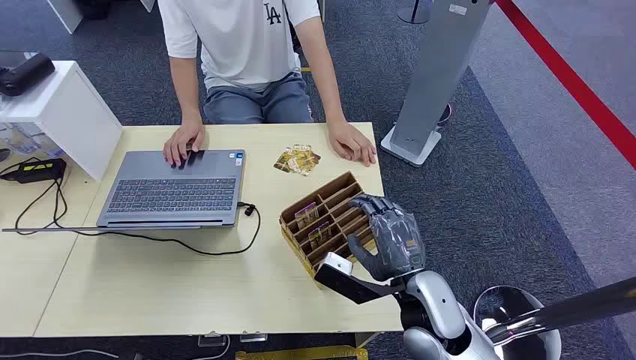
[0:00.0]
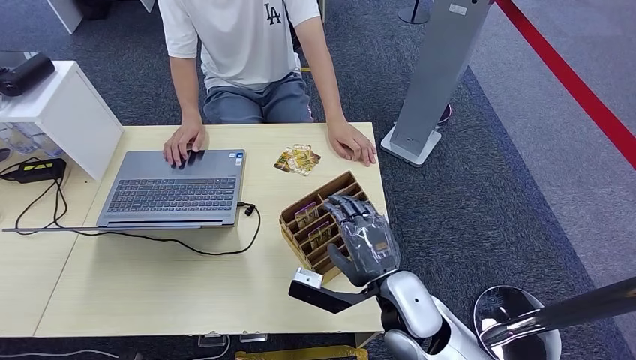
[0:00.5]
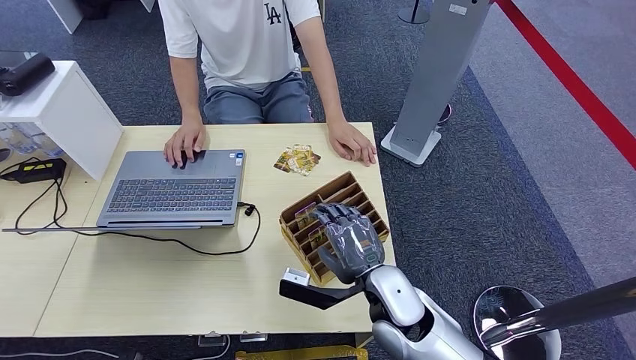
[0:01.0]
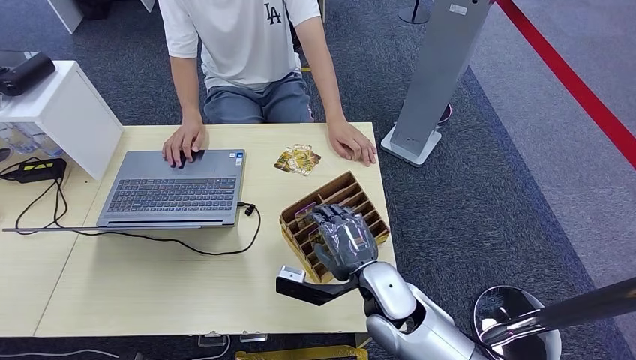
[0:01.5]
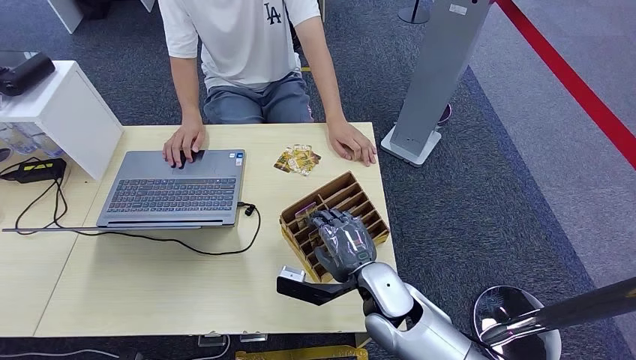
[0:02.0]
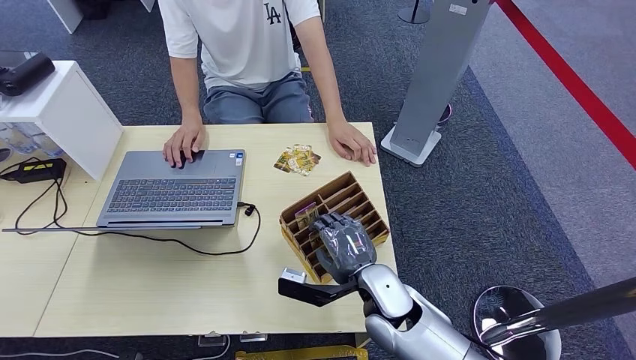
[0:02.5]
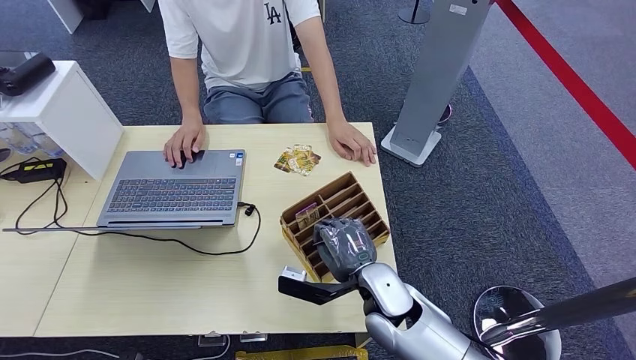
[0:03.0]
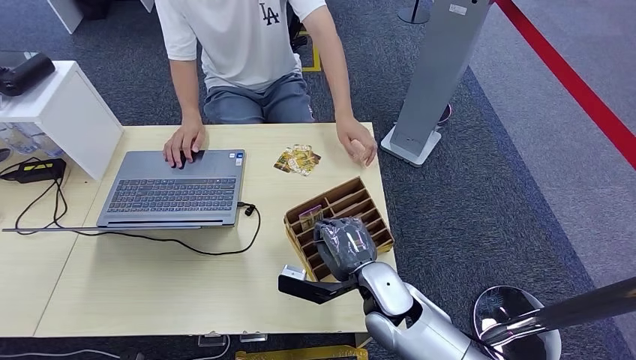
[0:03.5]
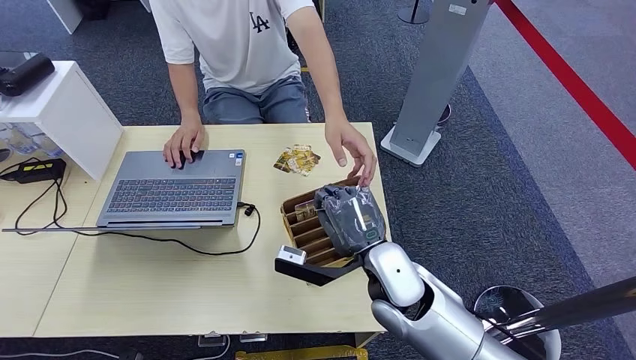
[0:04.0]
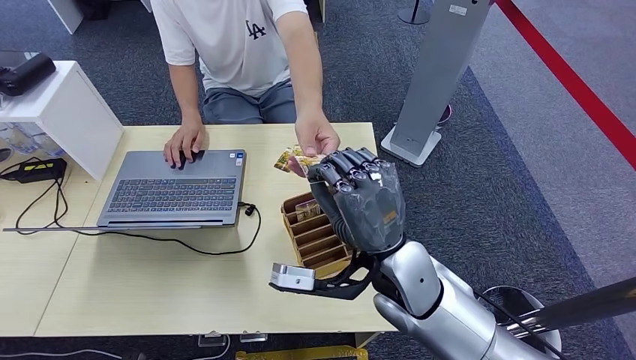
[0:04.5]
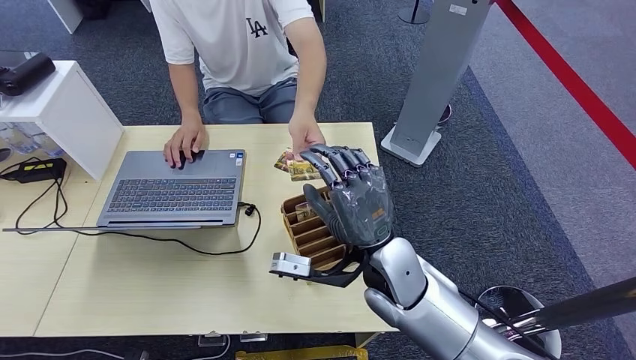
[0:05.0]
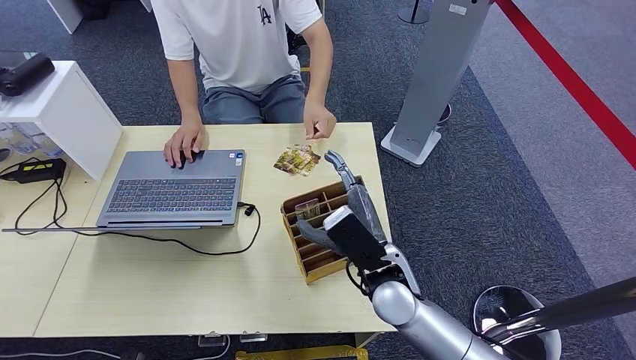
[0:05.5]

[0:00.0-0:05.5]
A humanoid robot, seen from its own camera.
Step, 0:00.0 to 0:03.5: Pick up the room card from the card holder.
Step, 0:04.0 to 0:05.5: Hand the room card to the target.
0:02.0 to 0:03.5: The two hands keep their place.
